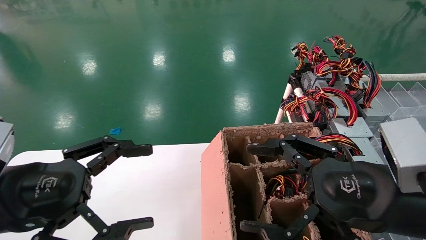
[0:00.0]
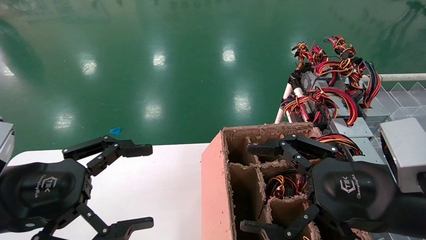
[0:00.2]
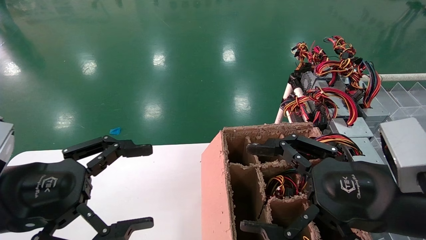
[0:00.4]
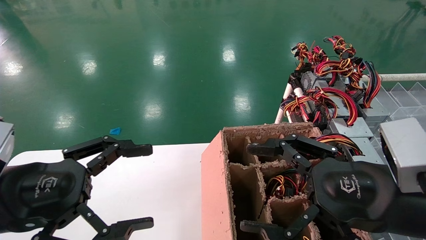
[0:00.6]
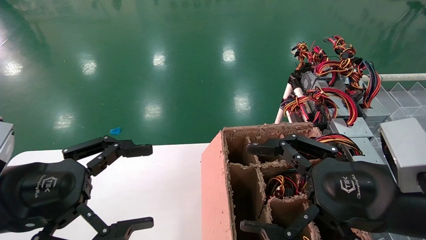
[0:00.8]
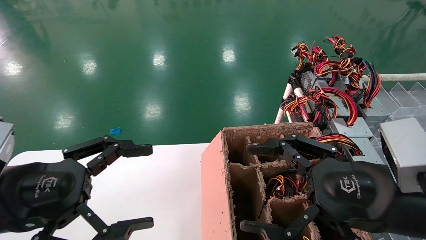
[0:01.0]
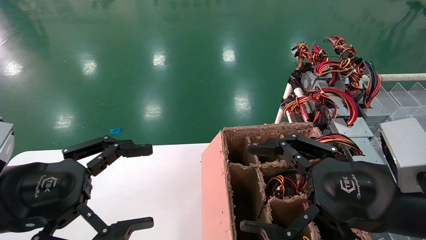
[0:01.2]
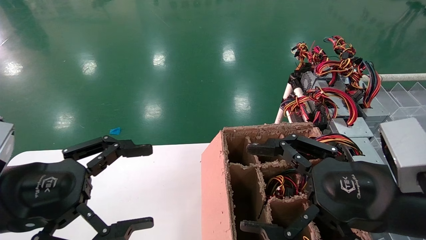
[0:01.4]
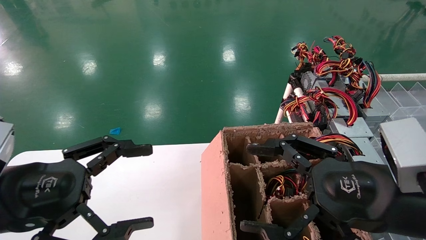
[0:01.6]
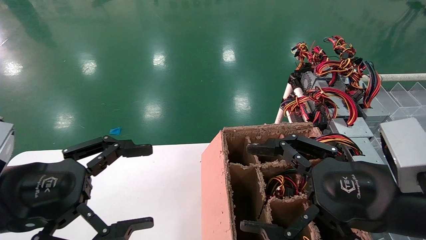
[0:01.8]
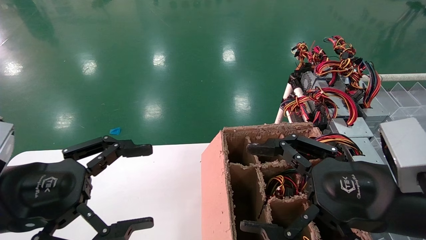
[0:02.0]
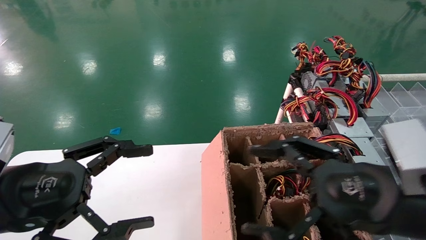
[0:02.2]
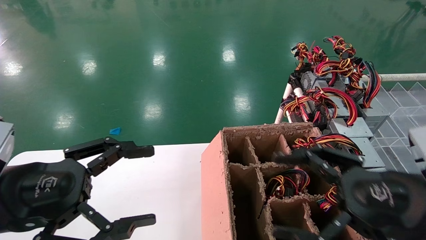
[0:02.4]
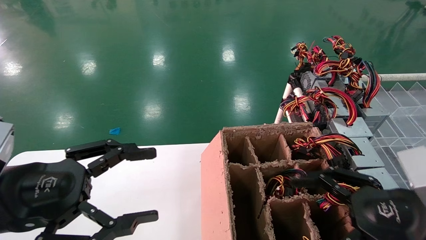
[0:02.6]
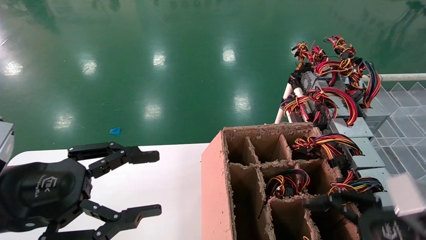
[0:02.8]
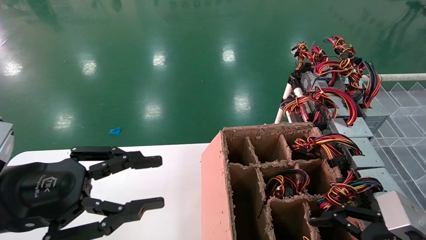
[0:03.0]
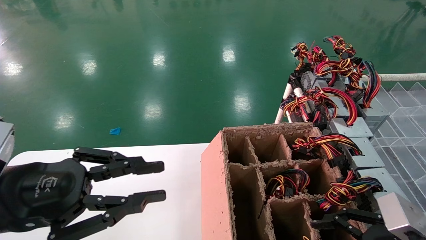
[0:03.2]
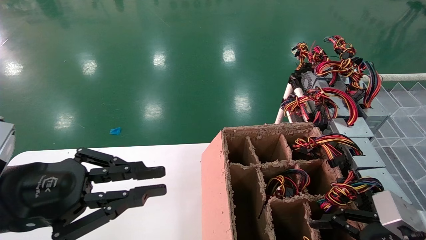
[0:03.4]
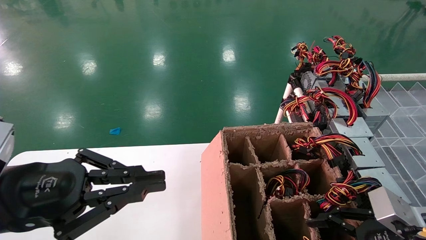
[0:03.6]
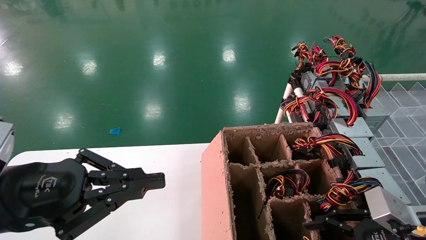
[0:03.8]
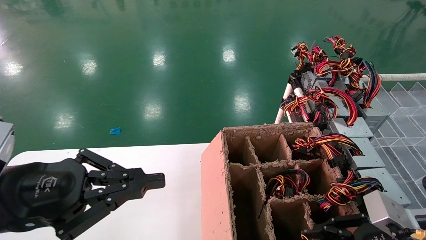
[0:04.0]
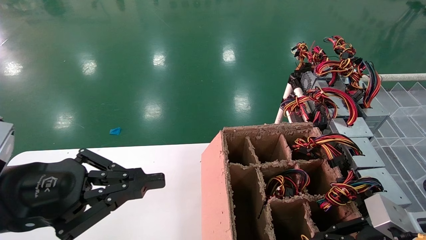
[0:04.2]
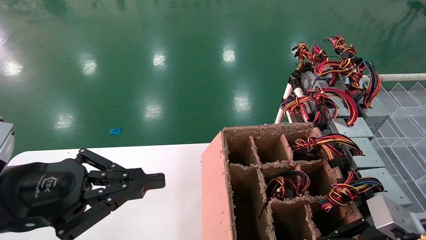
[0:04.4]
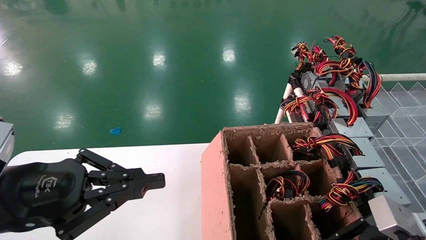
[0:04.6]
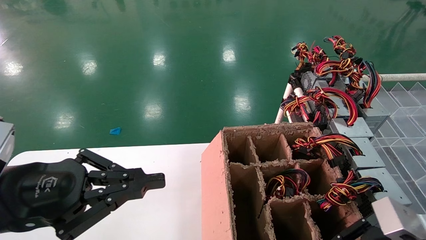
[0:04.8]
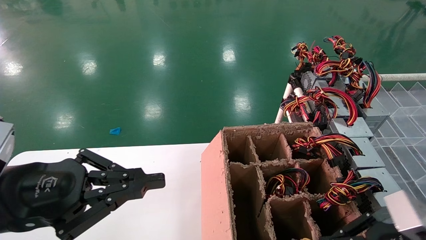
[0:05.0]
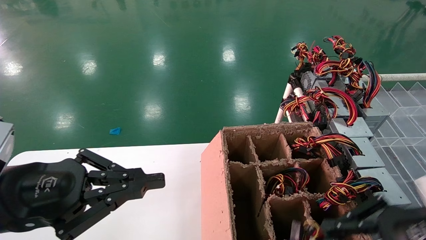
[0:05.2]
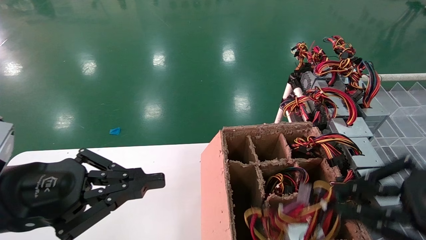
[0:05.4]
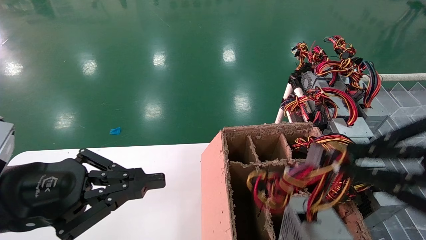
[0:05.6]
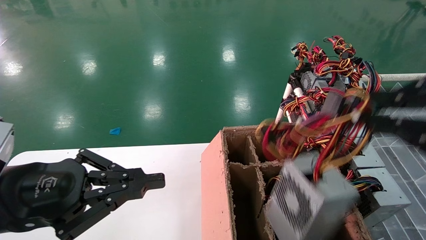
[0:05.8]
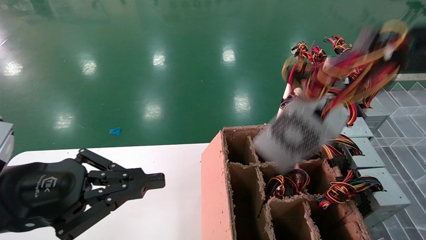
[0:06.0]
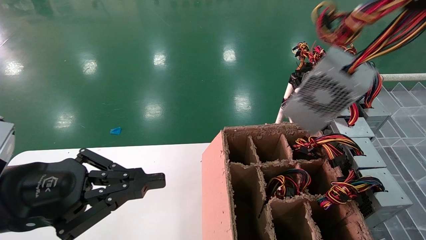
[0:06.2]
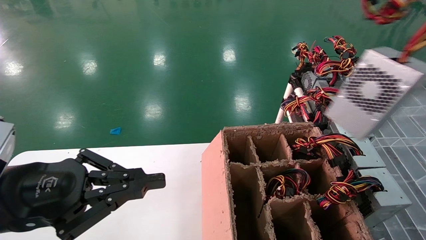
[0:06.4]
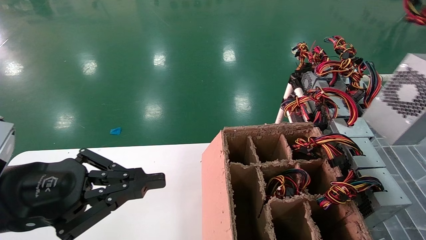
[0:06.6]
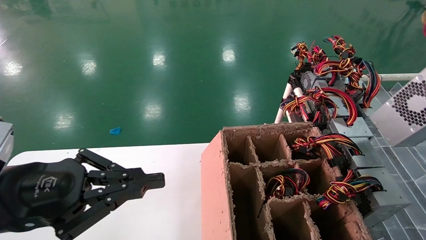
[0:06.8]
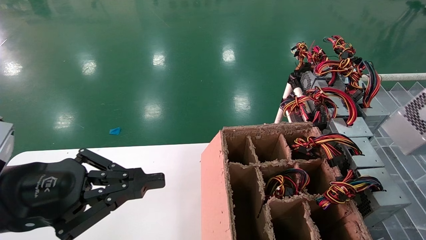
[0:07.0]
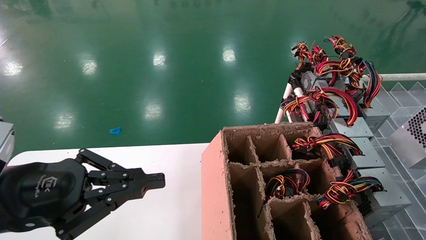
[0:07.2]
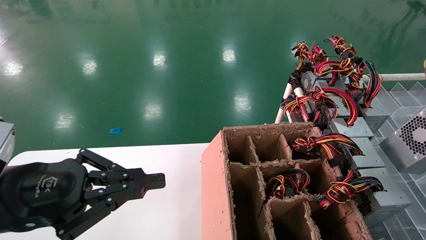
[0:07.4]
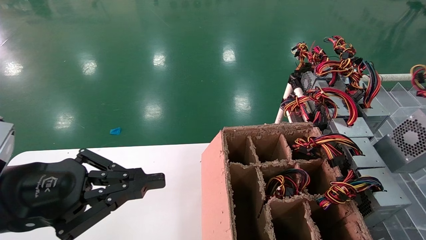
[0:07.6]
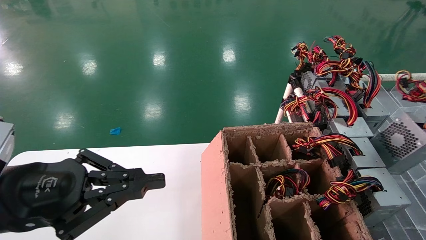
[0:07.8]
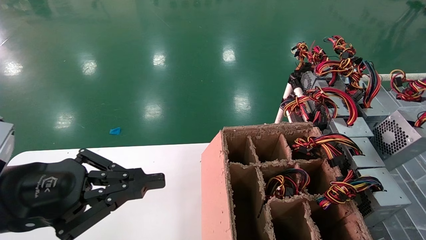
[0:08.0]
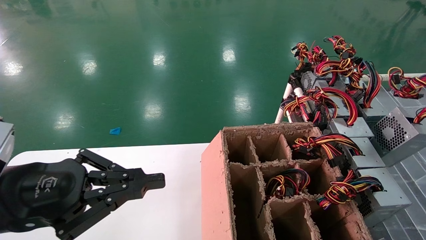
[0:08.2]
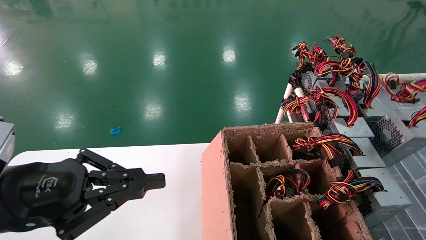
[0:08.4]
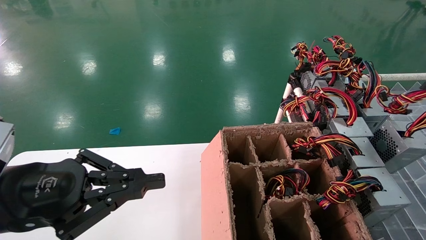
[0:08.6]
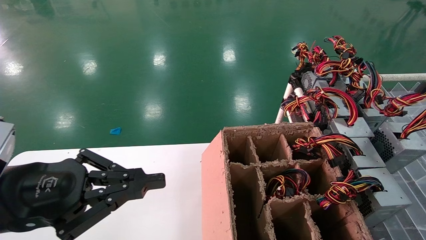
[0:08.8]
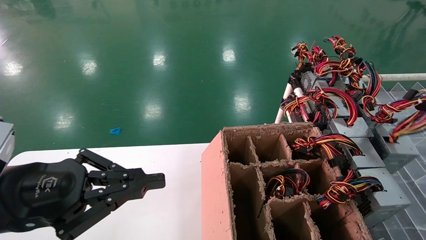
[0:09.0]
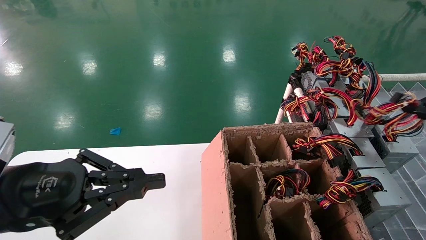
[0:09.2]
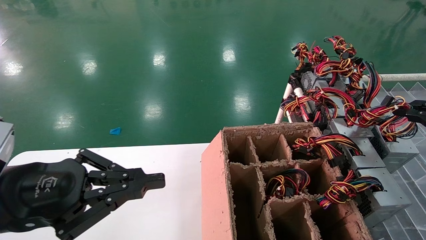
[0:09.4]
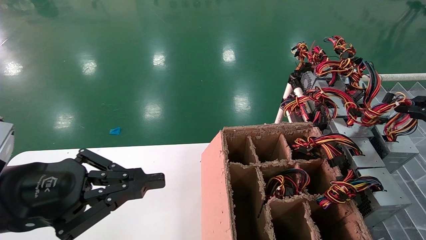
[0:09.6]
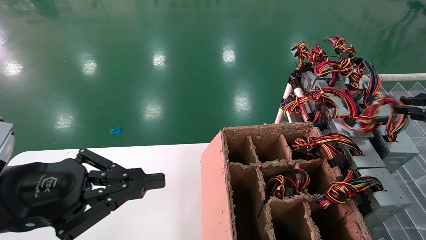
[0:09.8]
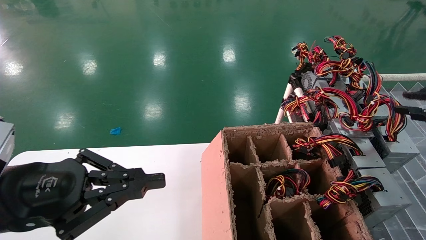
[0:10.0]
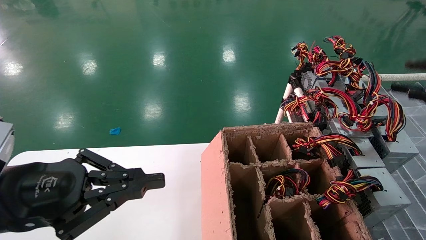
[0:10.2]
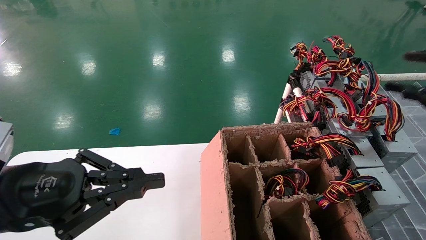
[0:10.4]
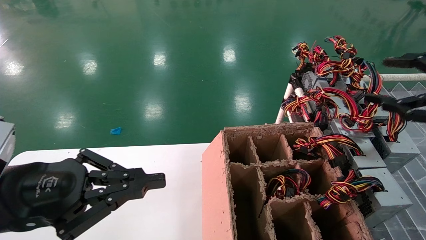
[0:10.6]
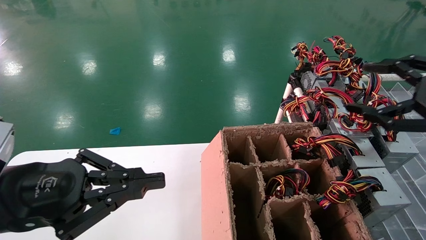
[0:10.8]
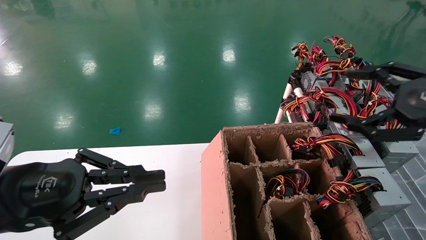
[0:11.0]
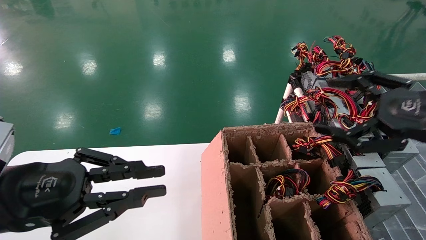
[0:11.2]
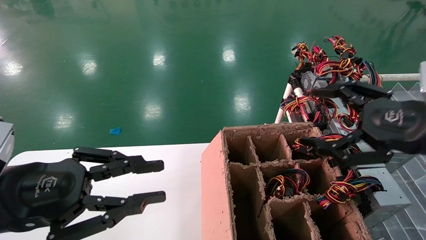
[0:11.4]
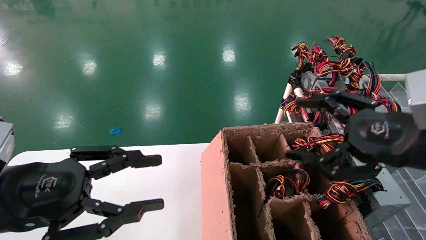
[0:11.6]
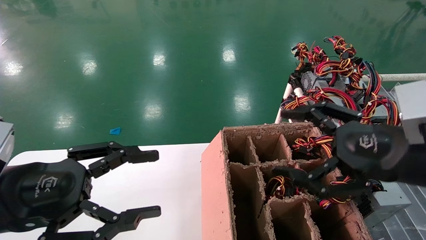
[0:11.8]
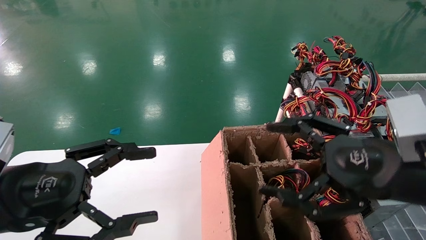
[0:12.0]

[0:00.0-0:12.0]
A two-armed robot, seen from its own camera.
Step, 0:02.6 to 0:04.6: Grab the main unit power supply from the containment box.
Step, 0:04.8 to 0:09.8: Place the main unit power supply in the designated area.
0:00.0 to 0:01.6: The two grippers keep their place.
0:01.6 to 0:03.0: The left gripper closes its fingers; the right gripper travels to the right and downward by roughly 10 cm.
0:03.0 to 0:04.4: The right gripper closes up, while the left gripper closes.
0:04.4 to 0:06.0: The right gripper travels upward and backward by roughly 25 cm.
0:06.0 to 0:07.6: The right gripper shifts approximately 20 cm to the right.
0:07.6 to 0:09.0: The right gripper moves forward, roughly 5 cm.
0:09.0 to 0:10.4: The right gripper goes about 5 cm to the left, and opens.
0:10.4 to 0:12.0: The right gripper is displaced to the left and downward by approximately 20 cm, and opens up. The left gripper opens its fingers.

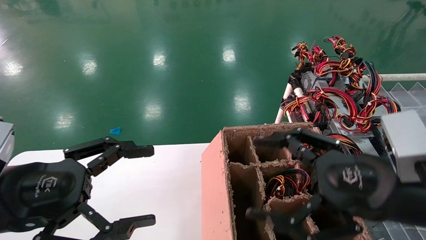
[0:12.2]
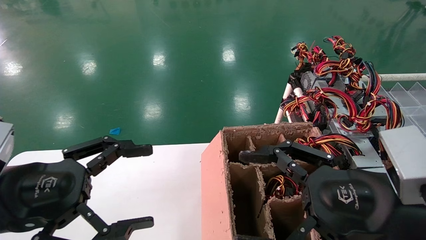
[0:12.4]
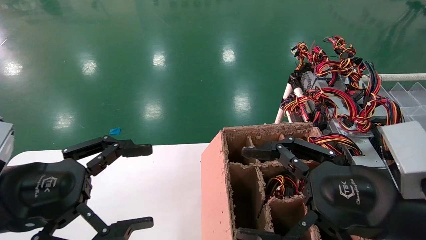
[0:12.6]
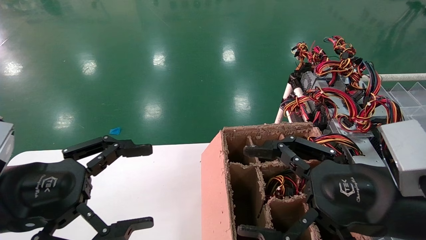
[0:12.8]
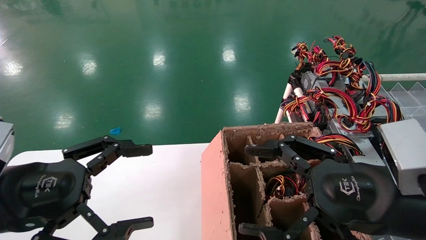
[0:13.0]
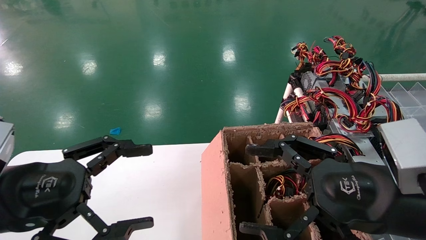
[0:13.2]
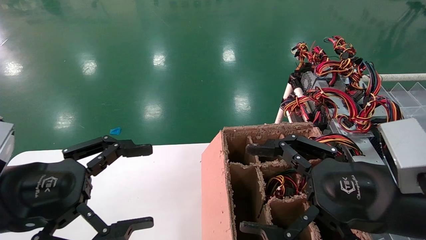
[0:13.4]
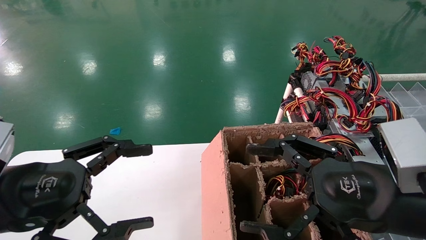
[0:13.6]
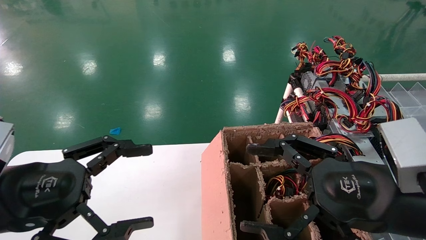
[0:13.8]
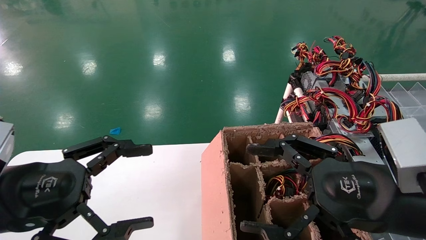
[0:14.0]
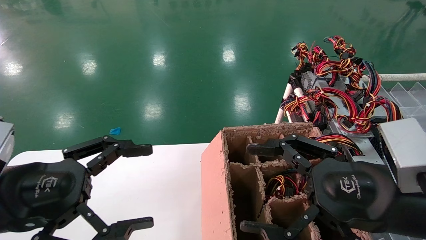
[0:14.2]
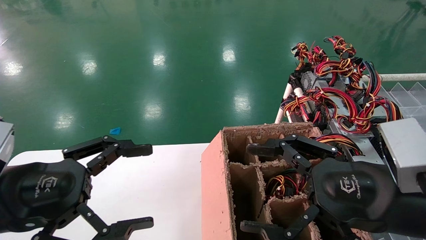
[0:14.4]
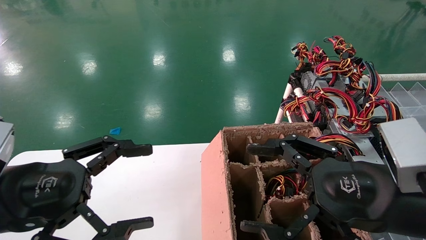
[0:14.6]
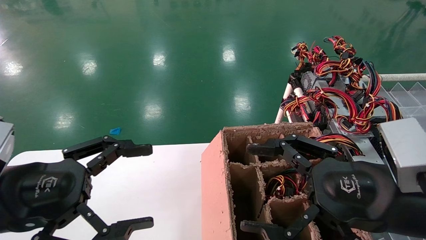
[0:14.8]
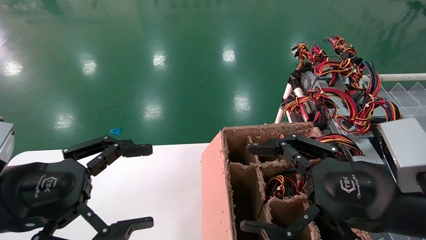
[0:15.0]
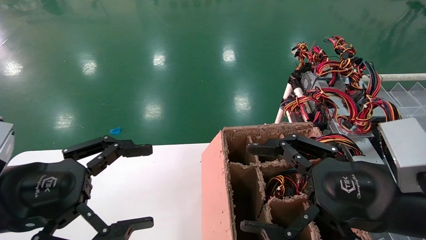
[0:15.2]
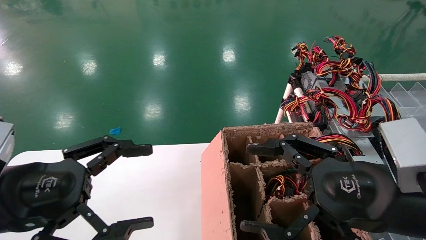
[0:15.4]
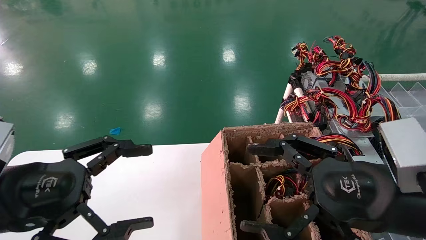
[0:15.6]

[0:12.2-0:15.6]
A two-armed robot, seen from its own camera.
0:12.2 to 0:13.8: There are only small adjustments of the grippers.
0:13.8 to 0:15.6: Both grippers stay about where they are.

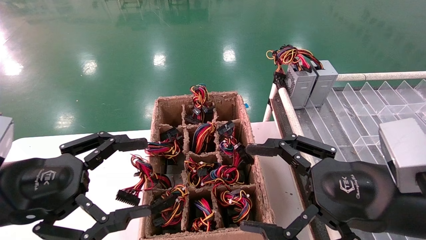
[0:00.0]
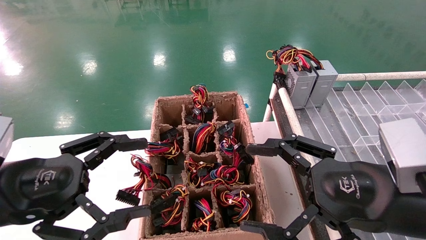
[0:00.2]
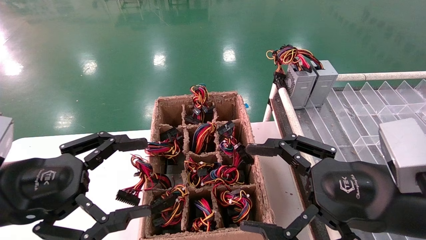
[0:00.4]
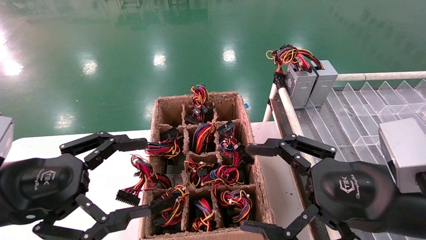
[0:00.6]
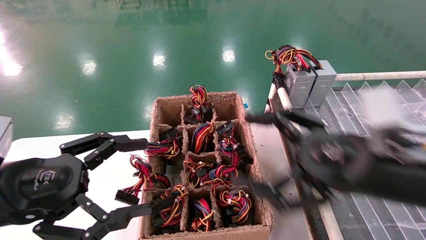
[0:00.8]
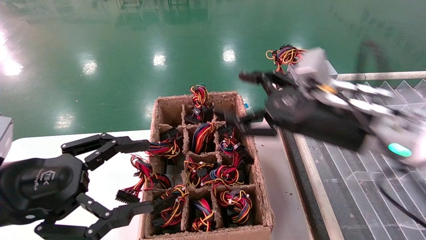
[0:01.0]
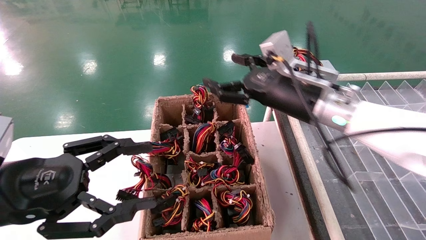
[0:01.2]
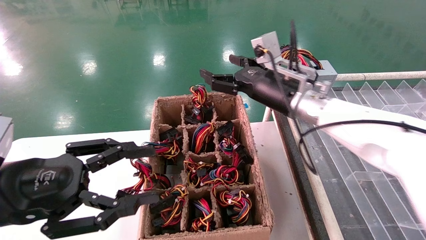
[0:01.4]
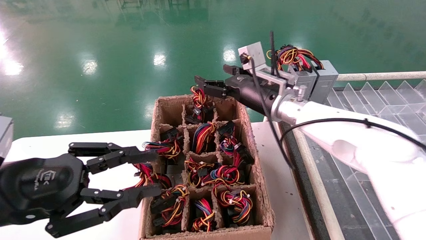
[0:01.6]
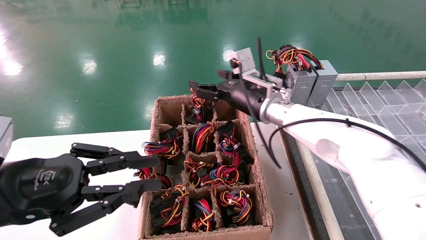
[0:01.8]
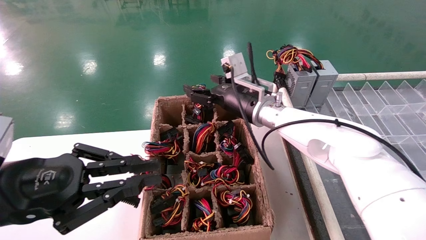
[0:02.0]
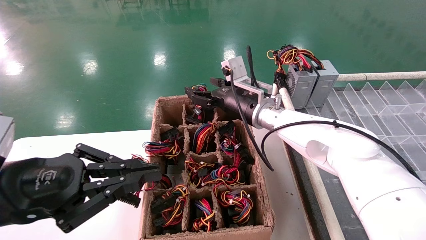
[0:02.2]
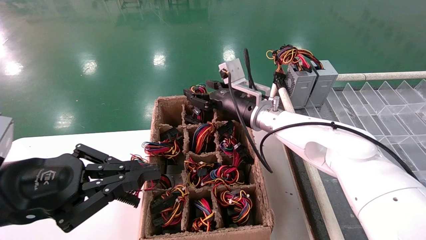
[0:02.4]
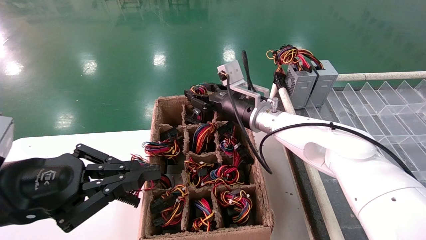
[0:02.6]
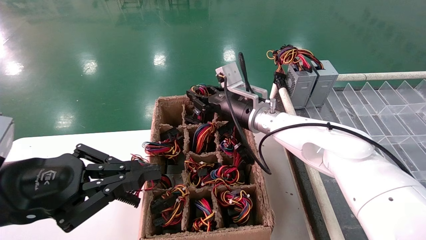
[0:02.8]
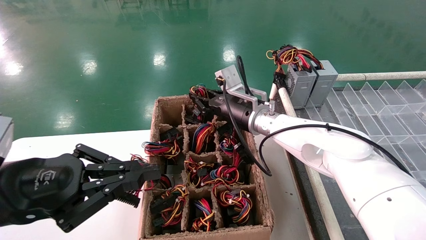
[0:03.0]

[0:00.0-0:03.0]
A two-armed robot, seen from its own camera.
0:00.0 to 0:01.6: The right gripper moves forward and to the left, about 25 cm. The left gripper closes.
0:01.6 to 0:03.0: The left gripper closes its fingers. The right gripper ends up approximately 5 cm from where it was, and closes.
